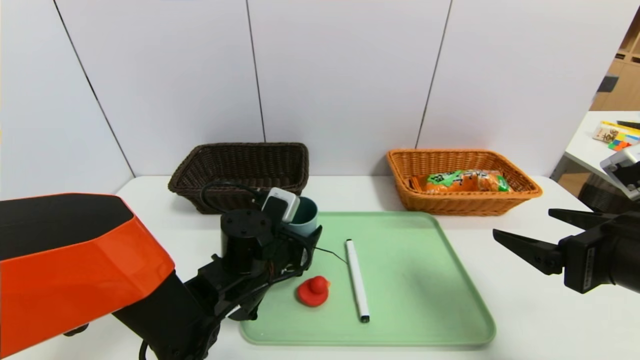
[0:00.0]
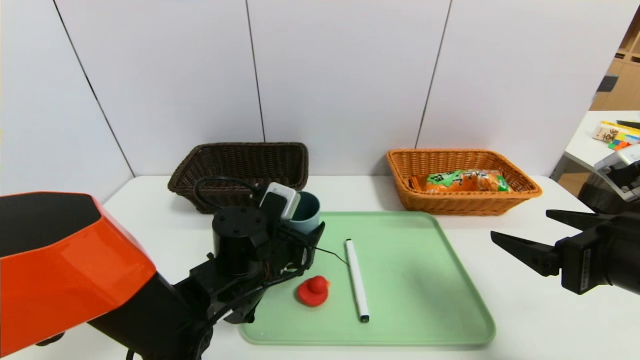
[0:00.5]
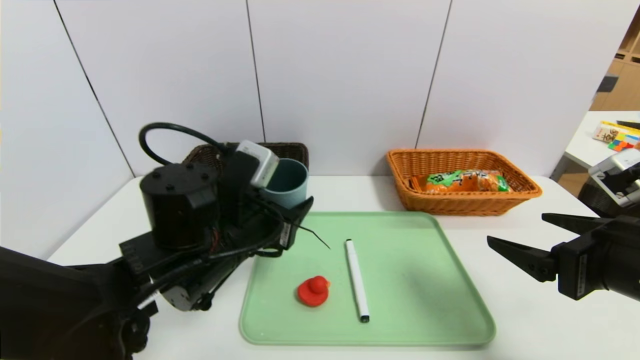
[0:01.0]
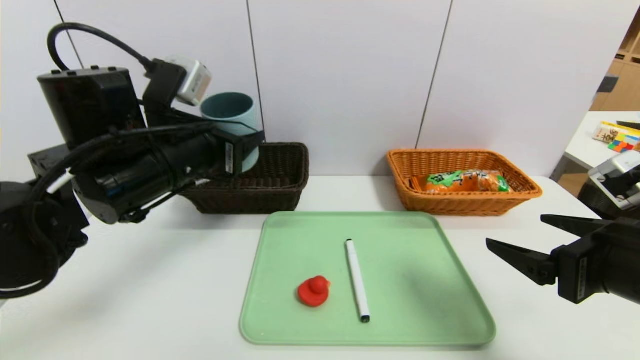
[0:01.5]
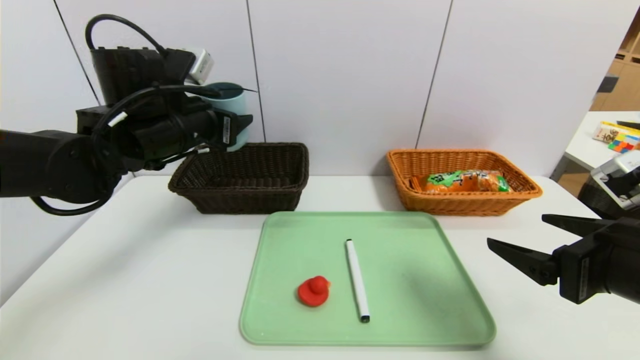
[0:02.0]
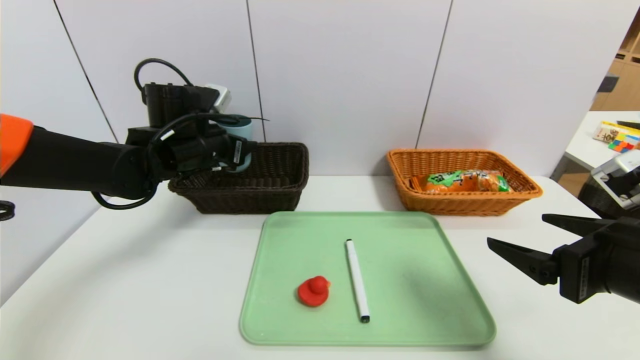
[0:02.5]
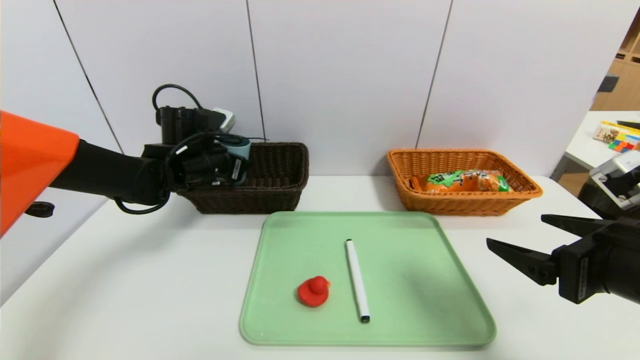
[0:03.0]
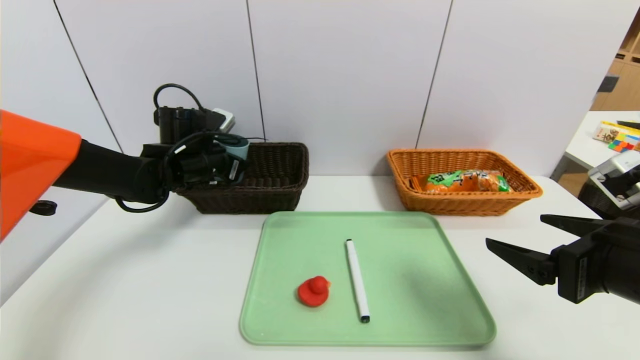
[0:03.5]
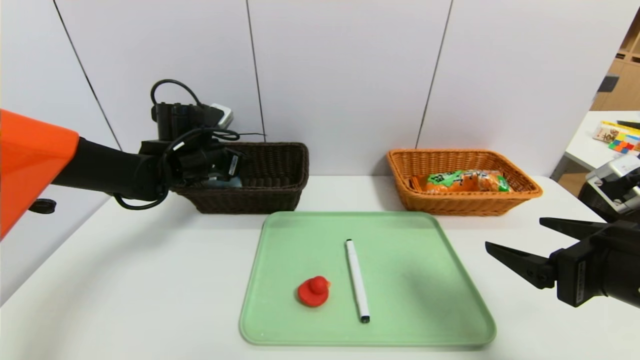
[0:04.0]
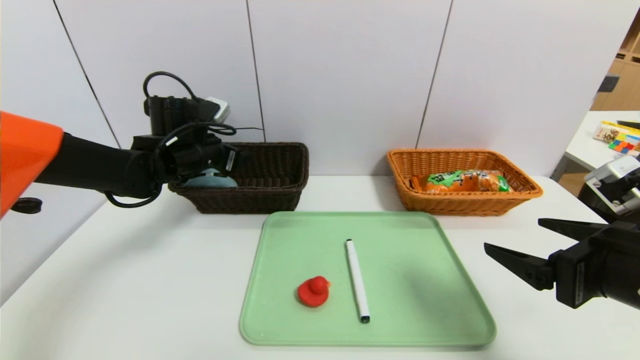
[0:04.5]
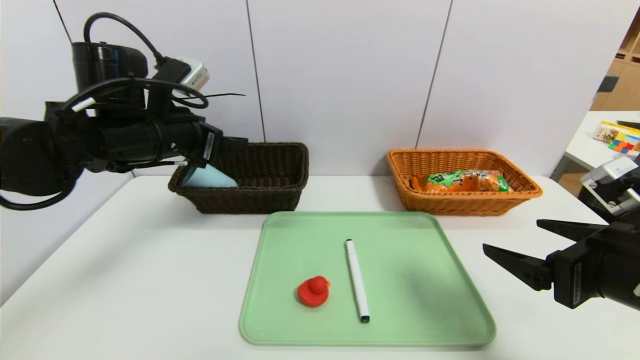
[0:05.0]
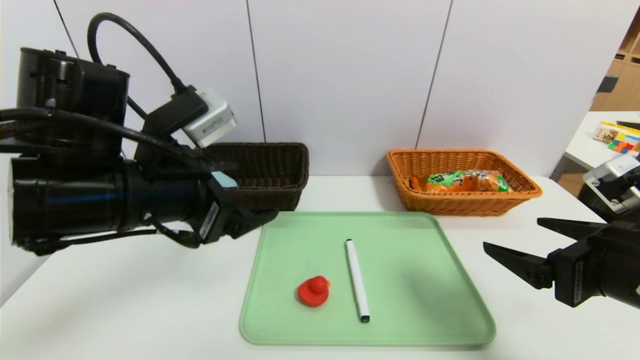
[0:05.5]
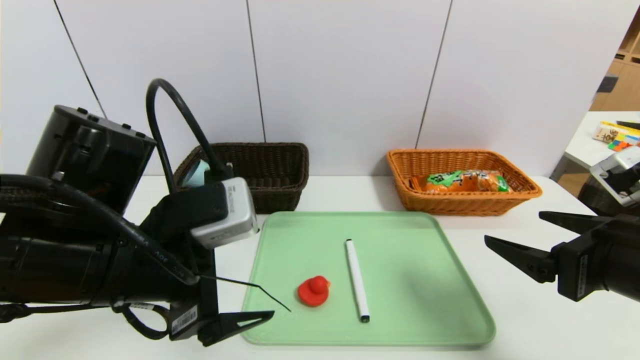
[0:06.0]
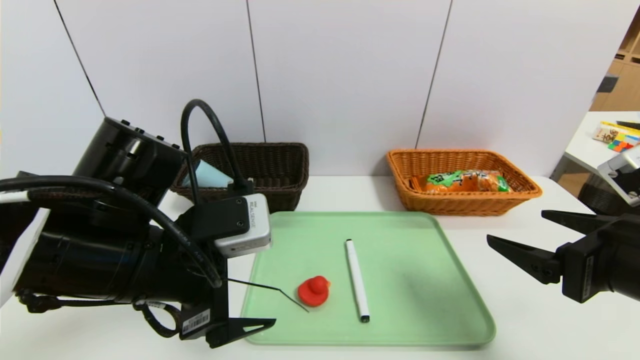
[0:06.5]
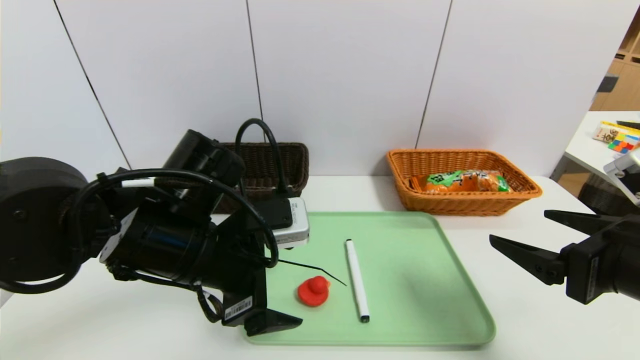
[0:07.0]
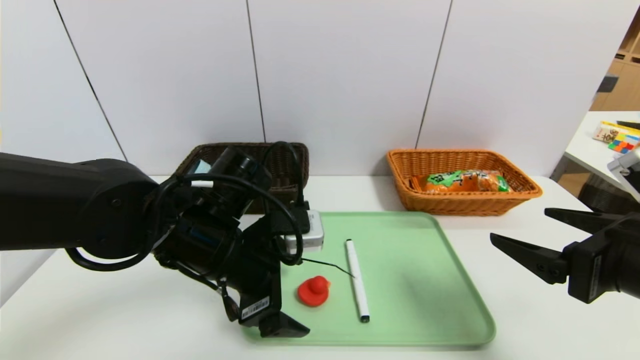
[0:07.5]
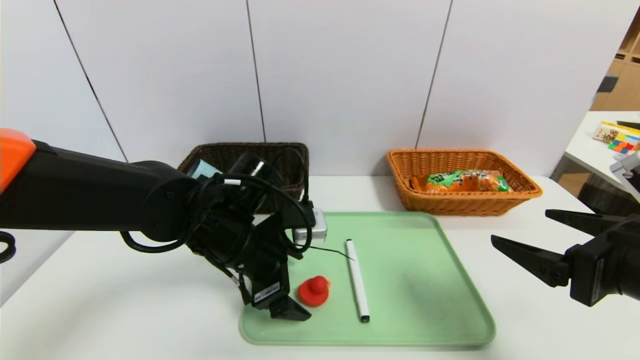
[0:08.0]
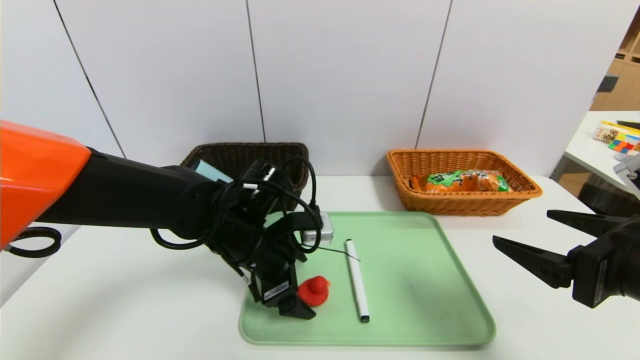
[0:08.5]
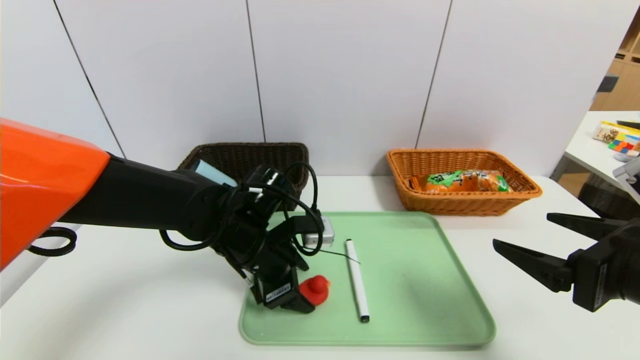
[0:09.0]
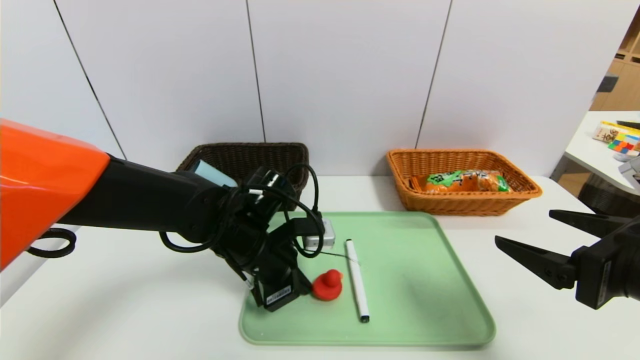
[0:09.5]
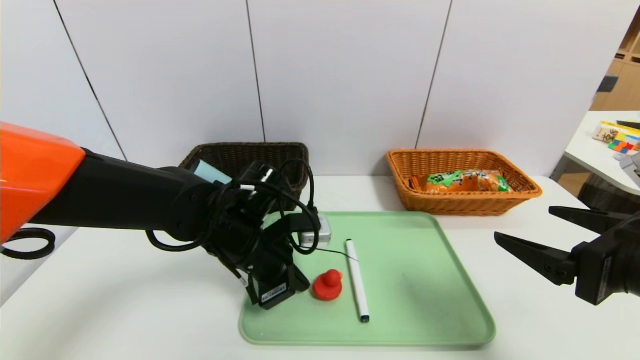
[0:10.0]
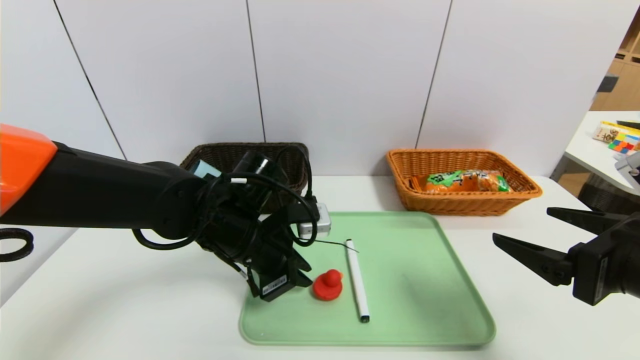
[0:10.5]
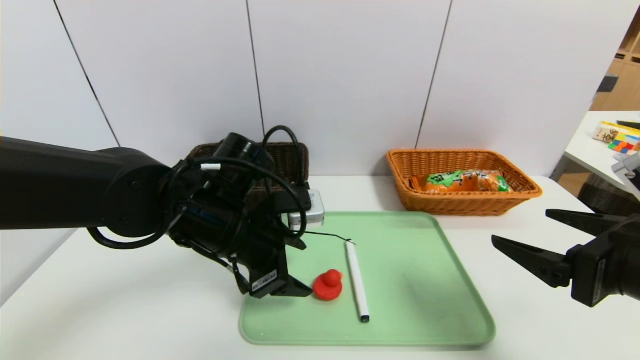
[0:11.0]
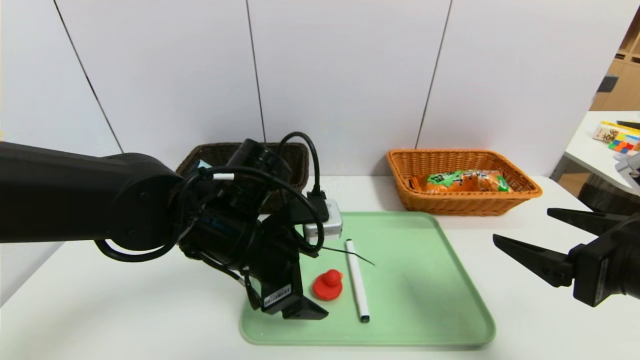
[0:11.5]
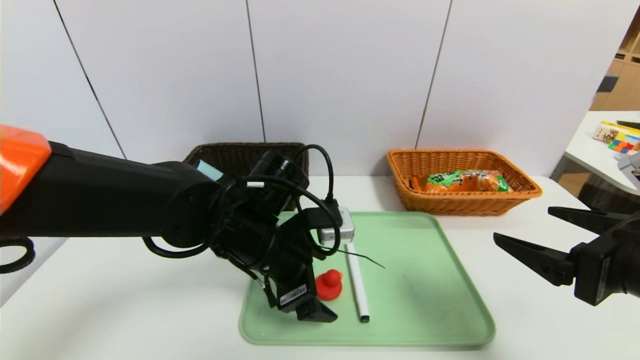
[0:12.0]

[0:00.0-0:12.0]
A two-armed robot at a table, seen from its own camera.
Task of the whole recording: place the food in the right basket with the right gripper, and place the non food items in the left basket with the left gripper.
Step, 0:00.0 to 0:04.0: Grasp the blue cup and put it in the left basket.
0:00.0 to 0:02.0: The left gripper is displaced upward, to the left and forward by approximately 20 cm.
0:02.0 to 0:04.0: The left gripper moves downward and forward, some 10 cm.
0:04.0 to 0:06.0: The left gripper travels backward by some 25 cm.
0:06.0 to 0:08.0: The left gripper is displaced forward, downward and to the right by approximately 15 cm.
0:08.0 to 0:10.0: The left gripper closes up.
0:10.0 to 0:12.0: The left gripper opens.

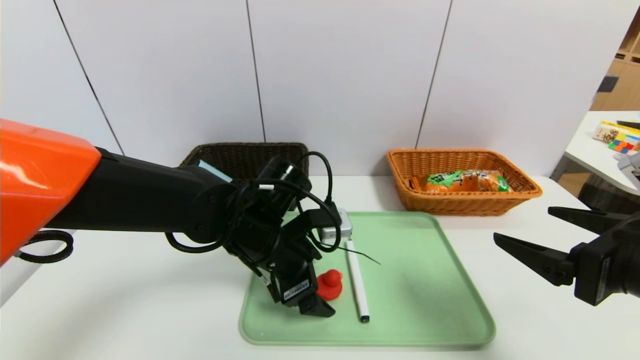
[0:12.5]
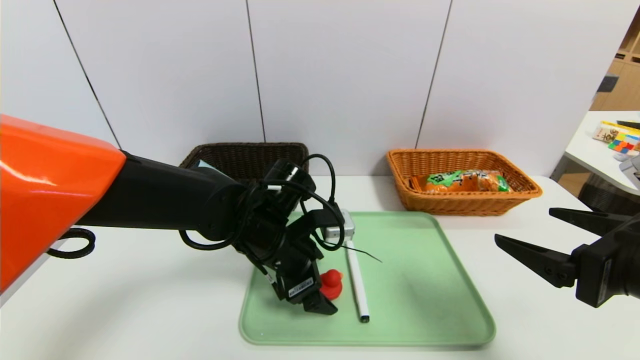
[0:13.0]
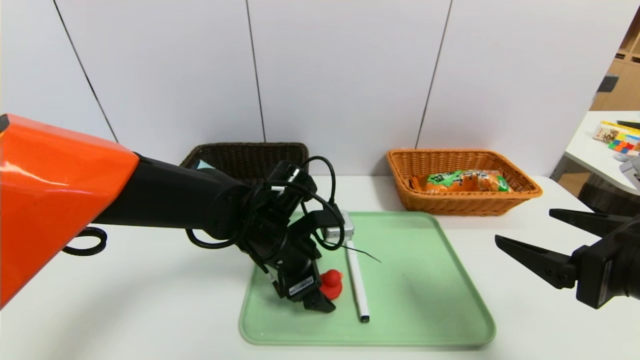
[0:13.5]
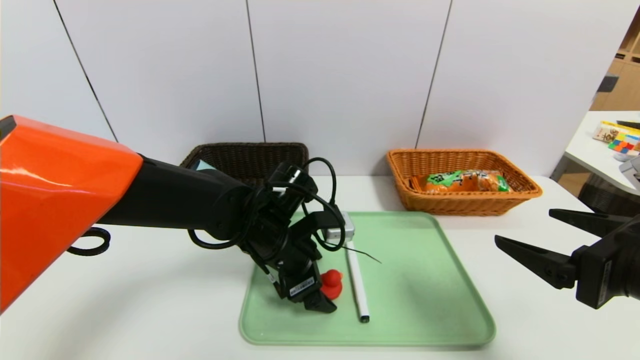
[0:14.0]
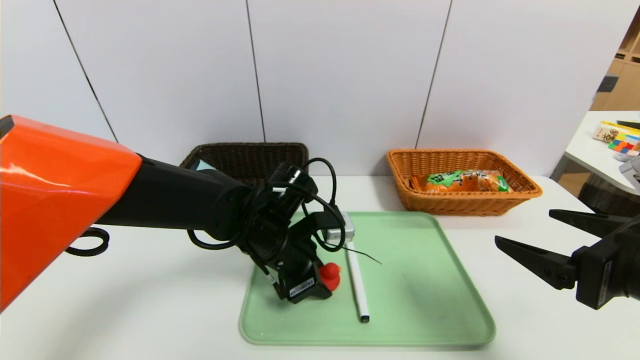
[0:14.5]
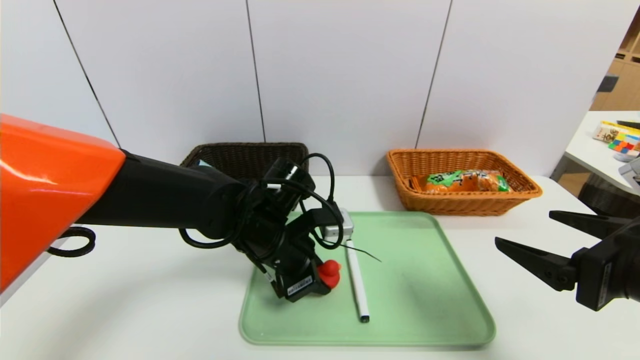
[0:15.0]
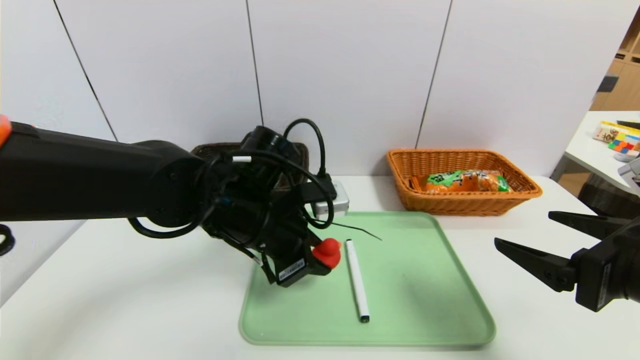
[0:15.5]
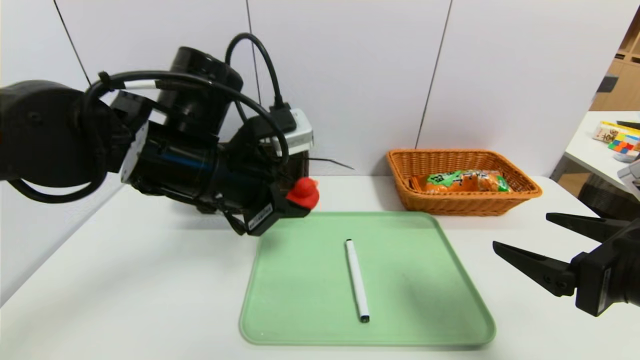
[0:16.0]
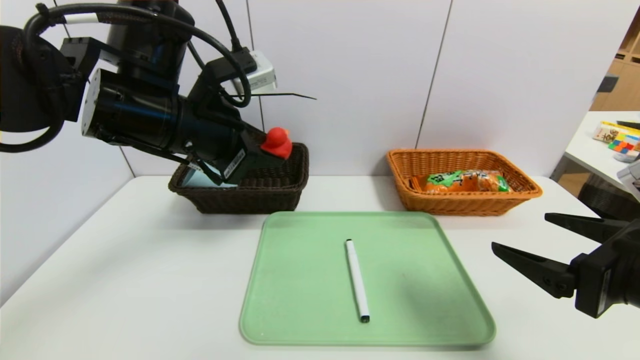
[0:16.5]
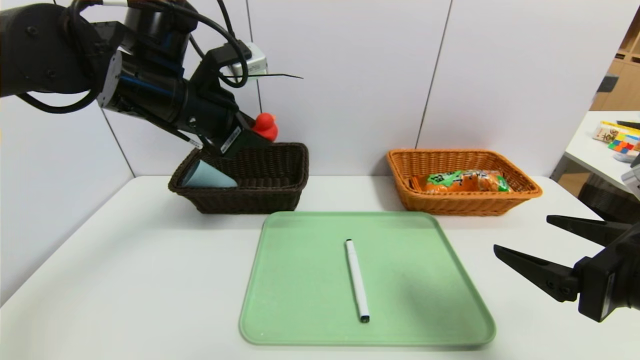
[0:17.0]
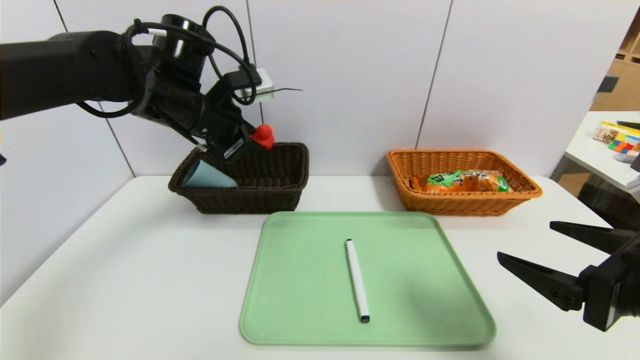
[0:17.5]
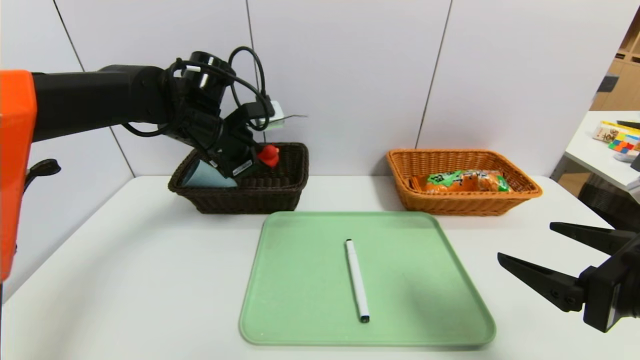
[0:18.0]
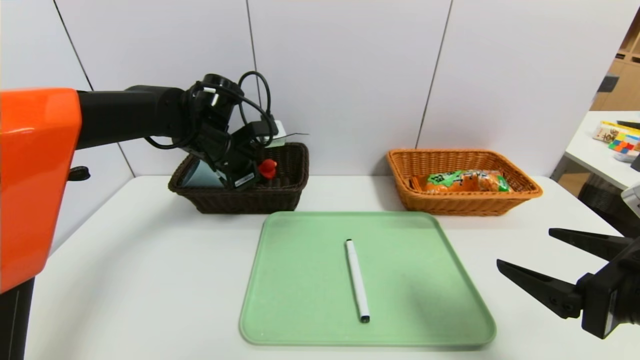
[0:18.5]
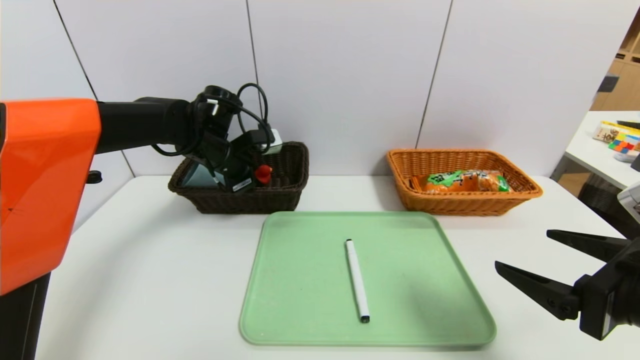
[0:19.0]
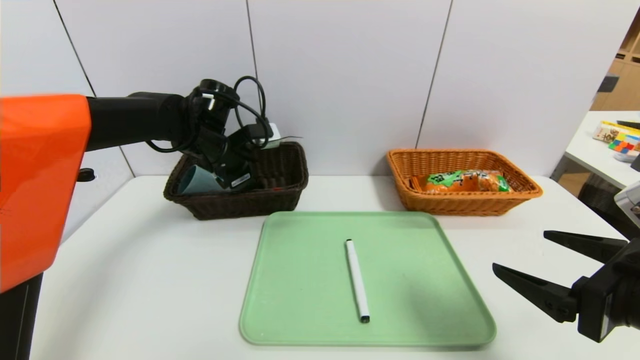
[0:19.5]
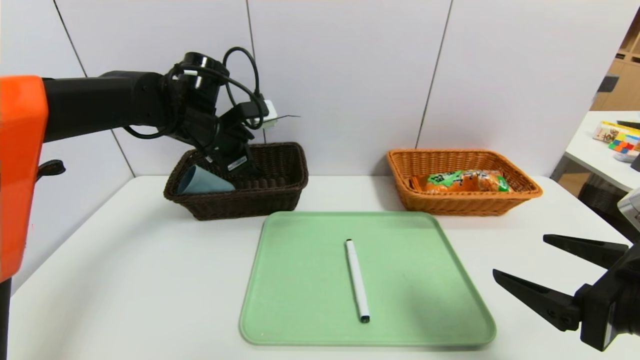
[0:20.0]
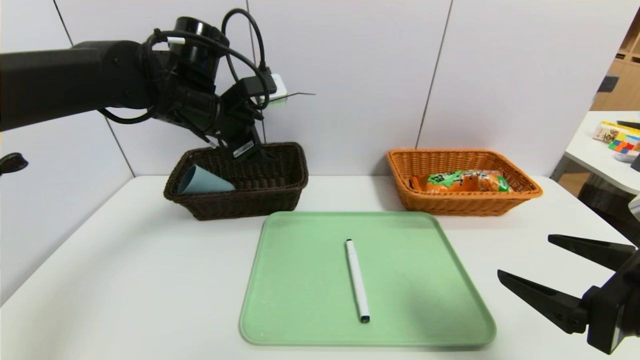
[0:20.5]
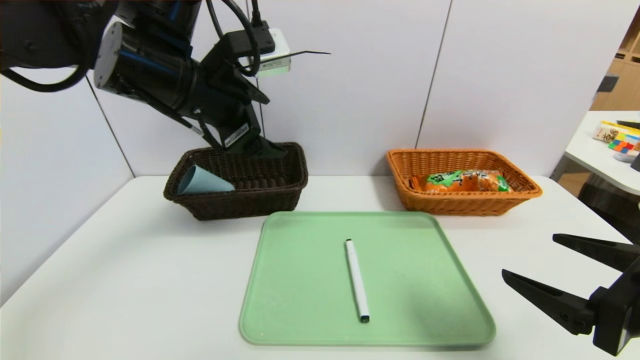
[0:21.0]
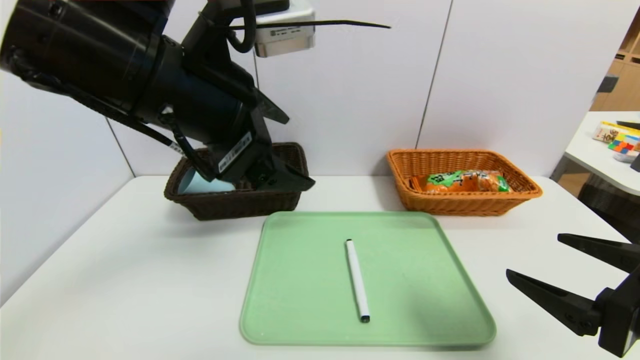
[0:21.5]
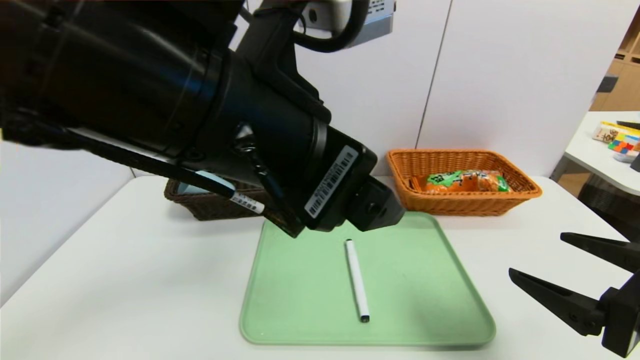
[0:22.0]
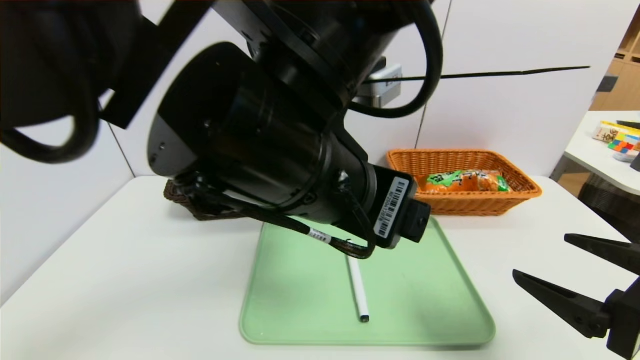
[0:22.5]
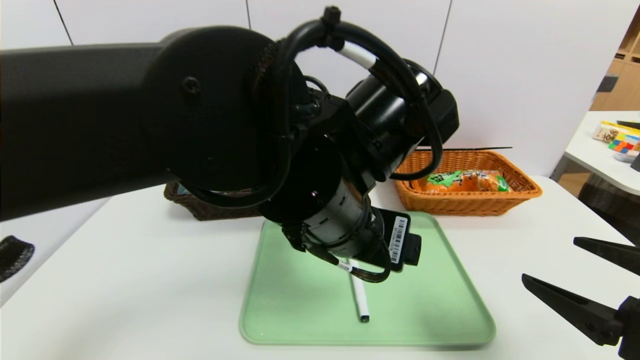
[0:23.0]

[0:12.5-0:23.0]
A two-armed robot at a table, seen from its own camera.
Task of the whole recording: place the food in the right basket with the right gripper, and place the non food items in the left basket with the left gripper.
Step, 0:12.5 to 0:19.5: Grasp the red duck and put it in the left basket.
0:12.5 to 0:14.5: The left gripper closes its fingers.
0:14.5 to 0:16.5: The left gripper is displaced upward and to the left by some 20 cm.
0:16.5 to 0:19.0: The left gripper goes approximately 20 cm forward and downward.
0:19.0 to 0:21.0: The left gripper shifts about 20 cm upward and backward, and opens its fingers.
0:21.0 to 0:23.0: The left gripper moves to the right, backward and downward, some 20 cm.
